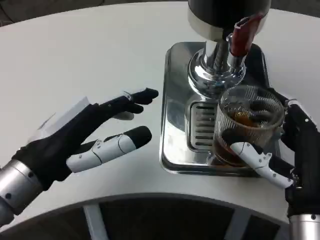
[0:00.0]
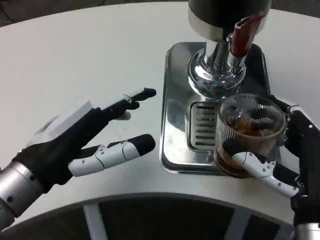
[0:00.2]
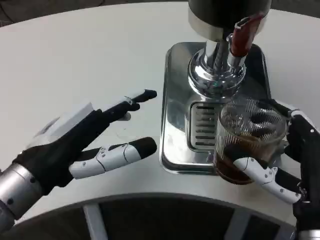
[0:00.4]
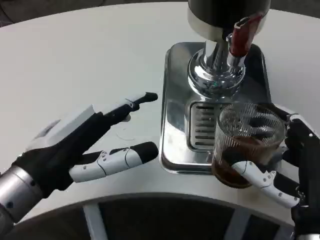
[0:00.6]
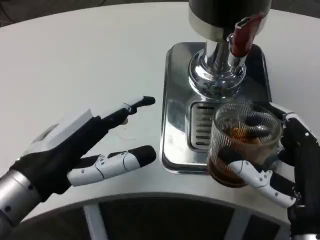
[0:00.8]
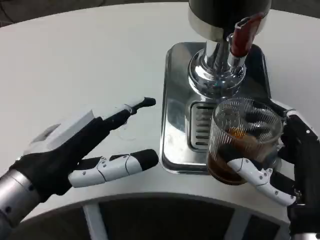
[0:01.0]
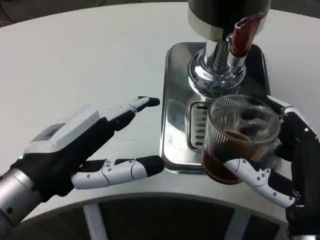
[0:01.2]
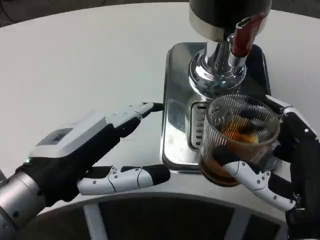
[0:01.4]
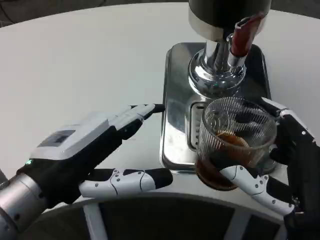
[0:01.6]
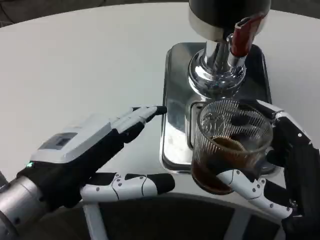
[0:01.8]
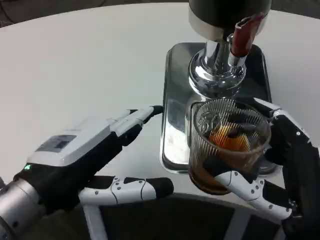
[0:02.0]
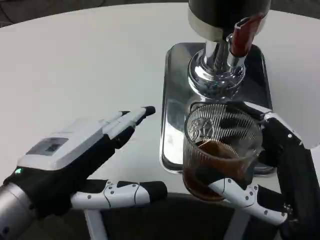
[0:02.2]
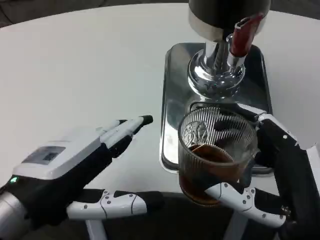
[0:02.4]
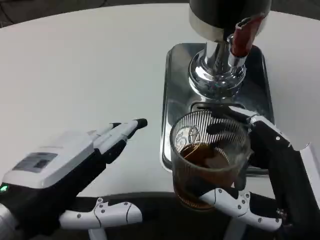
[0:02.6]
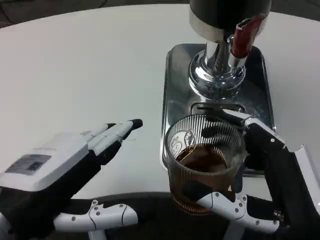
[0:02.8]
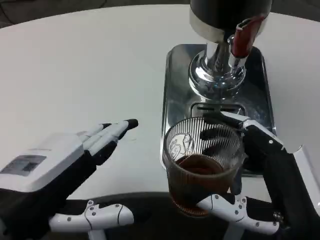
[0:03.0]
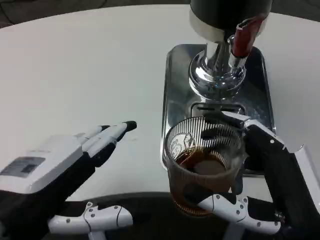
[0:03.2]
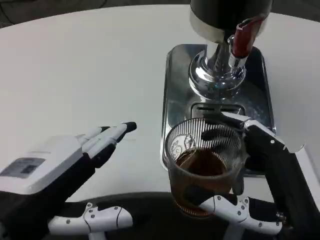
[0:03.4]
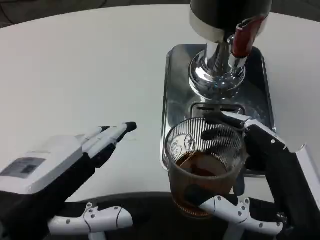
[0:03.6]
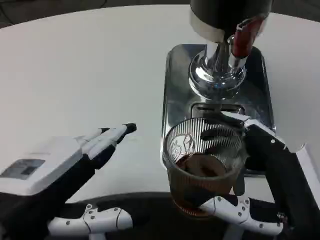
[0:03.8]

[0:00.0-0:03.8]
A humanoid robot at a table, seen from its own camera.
Task of the whole recording: Grasp the cup under the faucet to collect the drink, then remove the cup.
0:02.6 to 0:03.8: Both hands stay put.
